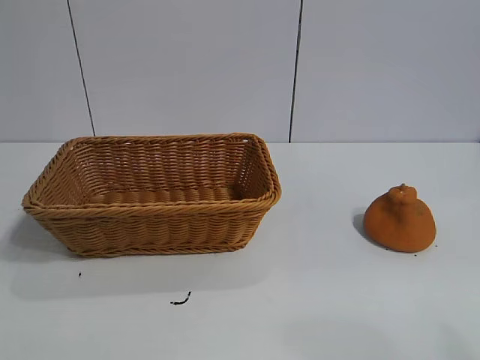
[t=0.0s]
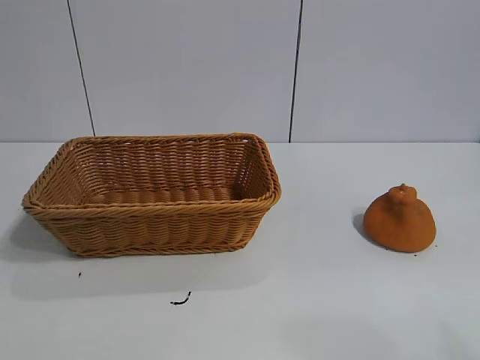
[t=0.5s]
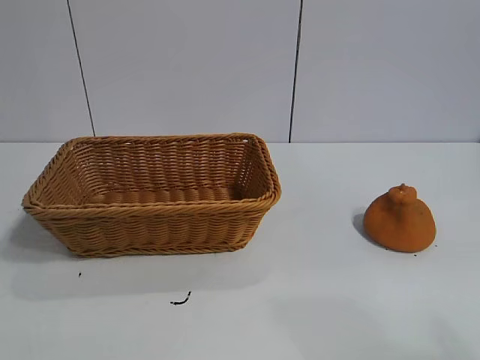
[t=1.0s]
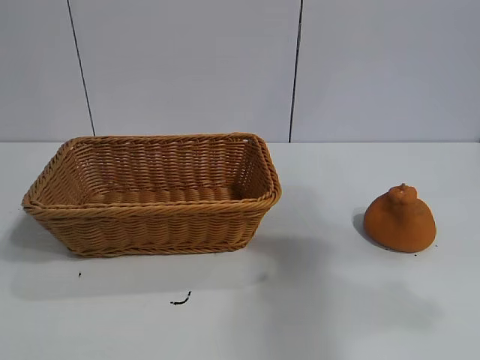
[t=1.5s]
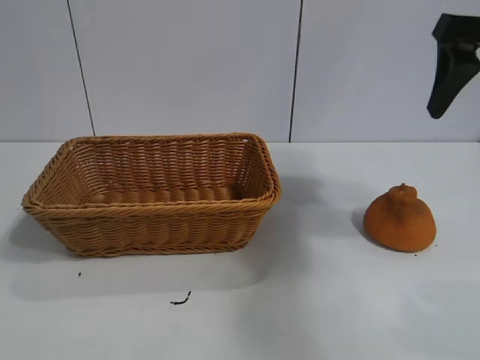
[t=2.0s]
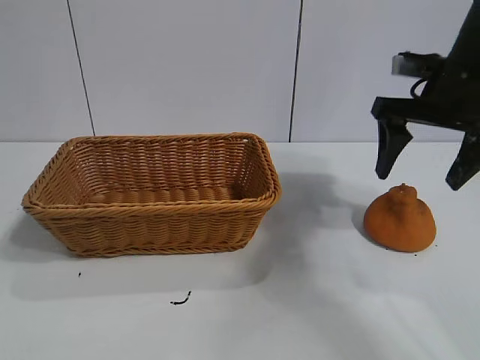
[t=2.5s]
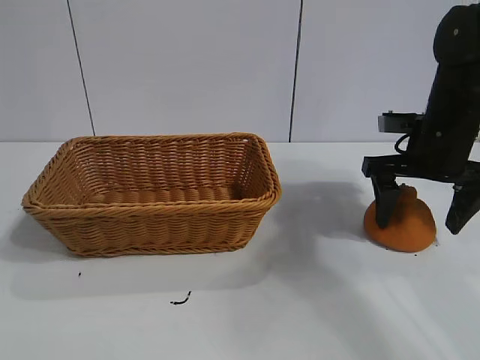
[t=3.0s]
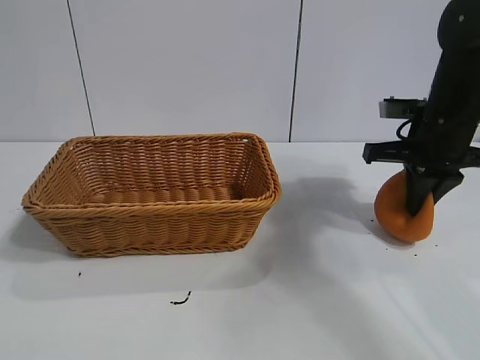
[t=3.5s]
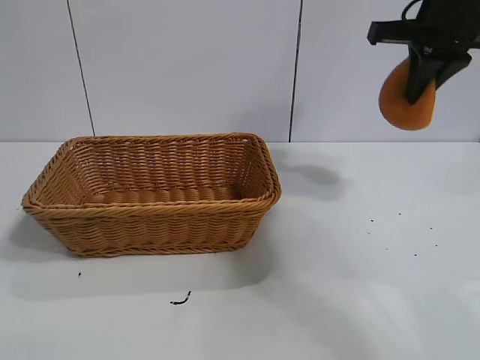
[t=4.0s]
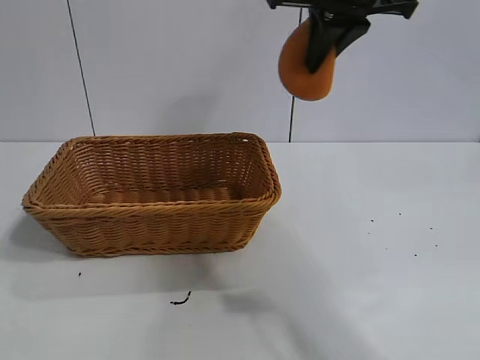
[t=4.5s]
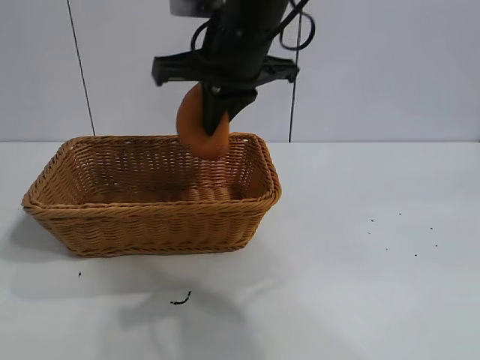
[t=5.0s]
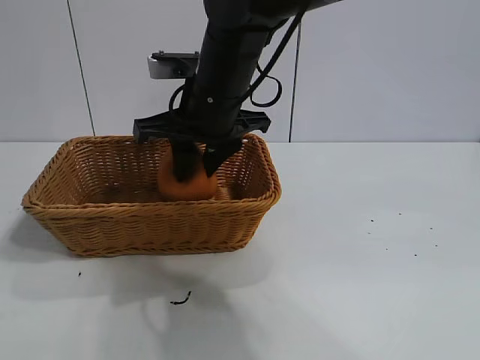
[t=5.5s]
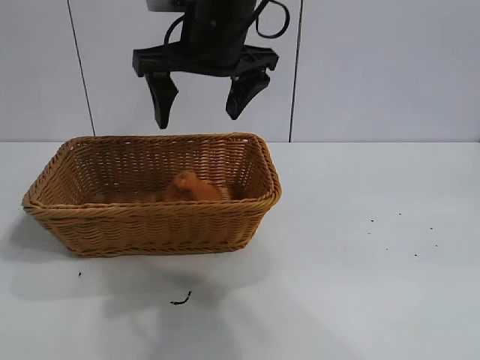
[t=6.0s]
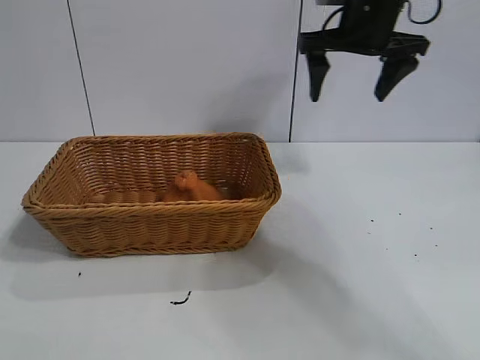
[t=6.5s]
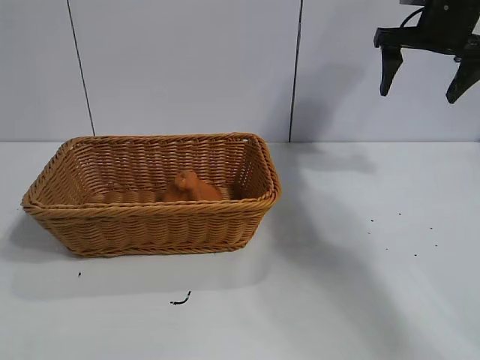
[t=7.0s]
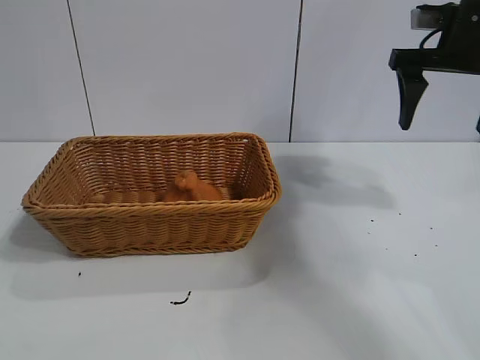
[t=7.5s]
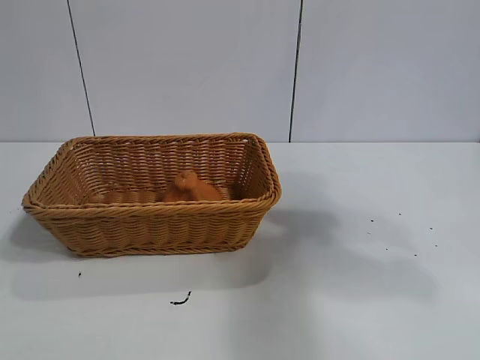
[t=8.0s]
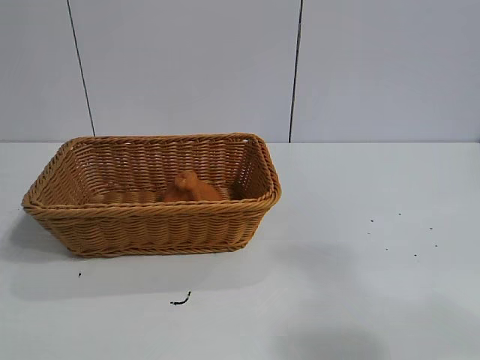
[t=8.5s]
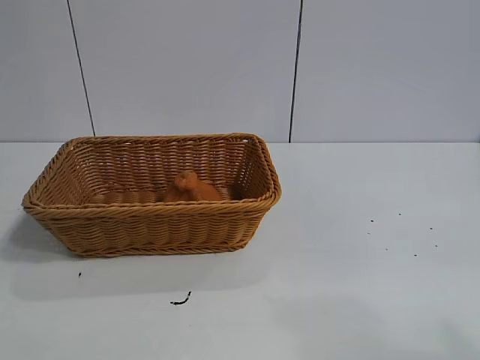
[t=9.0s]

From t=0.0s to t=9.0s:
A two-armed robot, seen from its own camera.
Task of the whole recording: pick up the orange and put it into the basket.
Step, from t=1.0s to t=3.0s: Grasp the orange with right gripper.
Step, from t=3.5s to t=5.5s: Place the orange in the basket with right gripper.

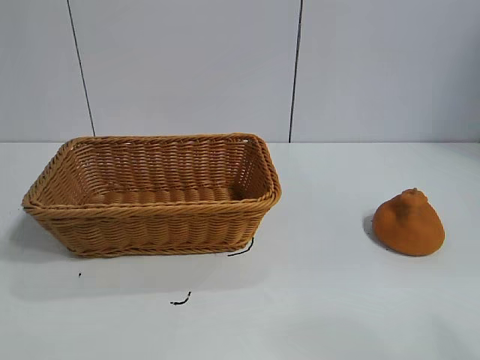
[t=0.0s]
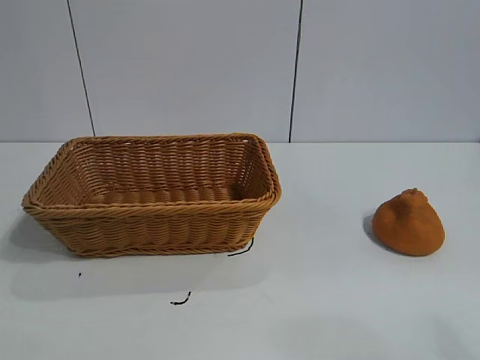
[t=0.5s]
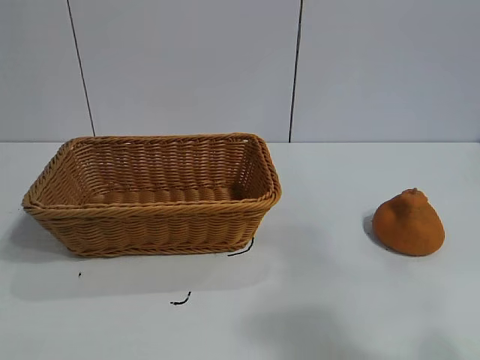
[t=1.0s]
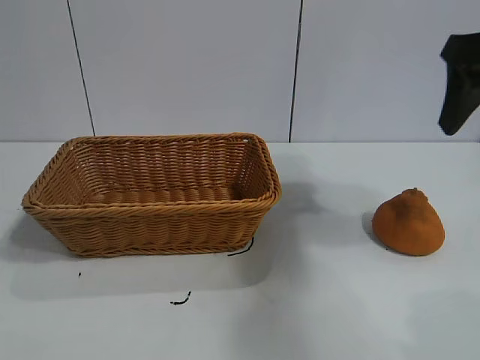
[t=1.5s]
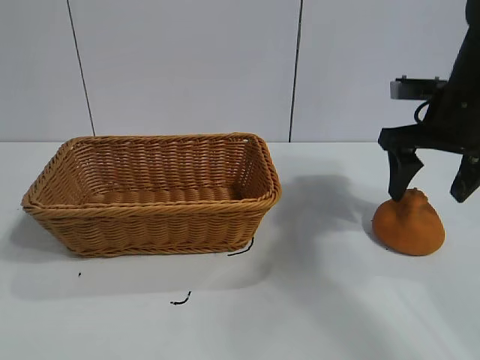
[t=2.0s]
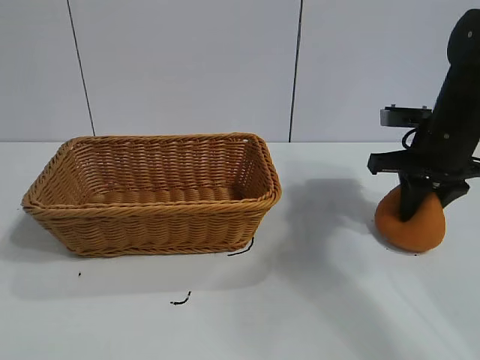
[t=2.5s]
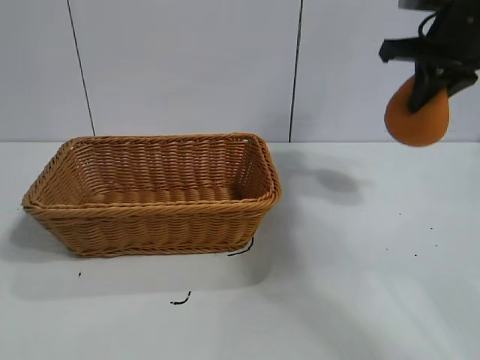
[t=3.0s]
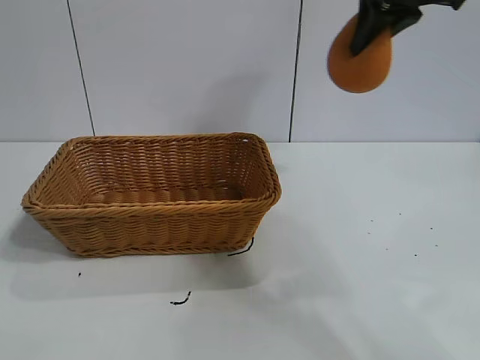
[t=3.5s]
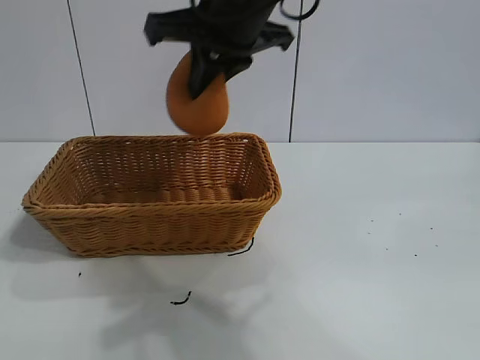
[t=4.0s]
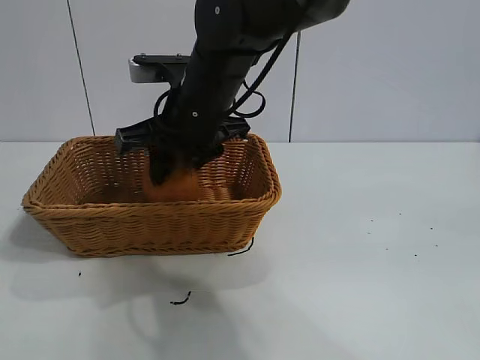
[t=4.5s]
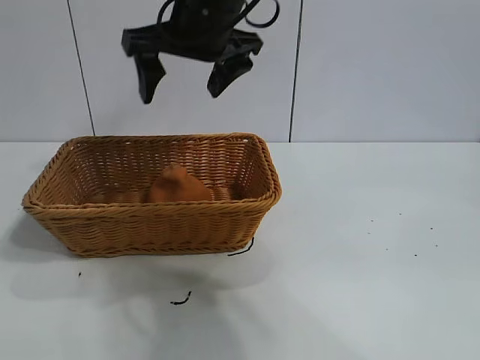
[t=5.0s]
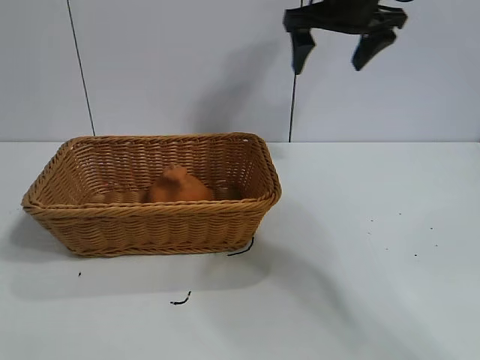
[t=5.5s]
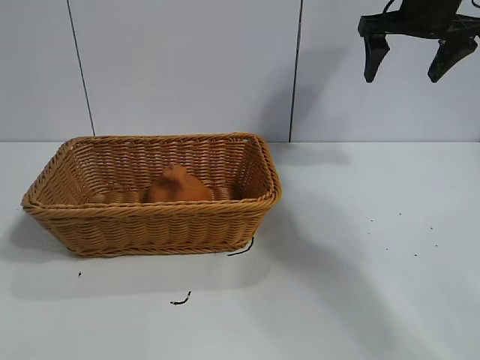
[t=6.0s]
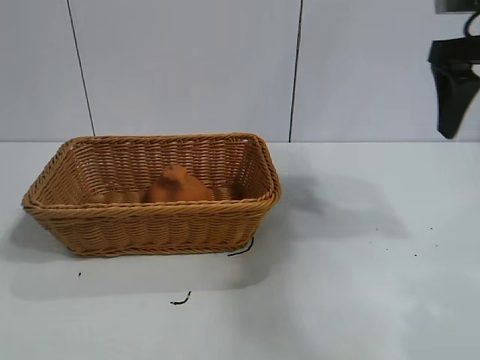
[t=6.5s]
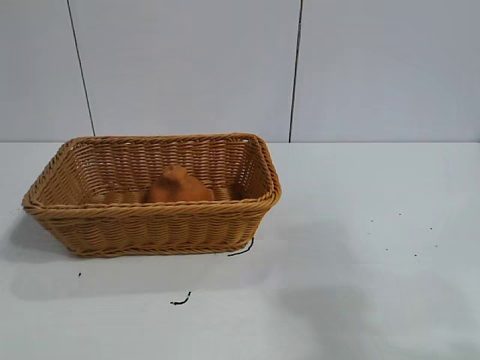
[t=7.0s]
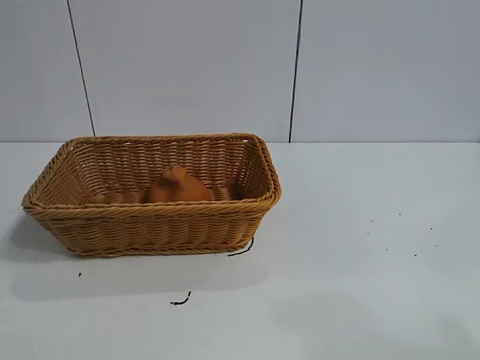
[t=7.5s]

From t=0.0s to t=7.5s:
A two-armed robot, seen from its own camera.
Task of the whole recording: pick up the orange and put it into the basket.
Step, from t=1.0s to t=2.5s: Grasp the orange with right gripper.
Step, from t=3.0s to t=4.5s: Place the orange in the basket with right gripper.

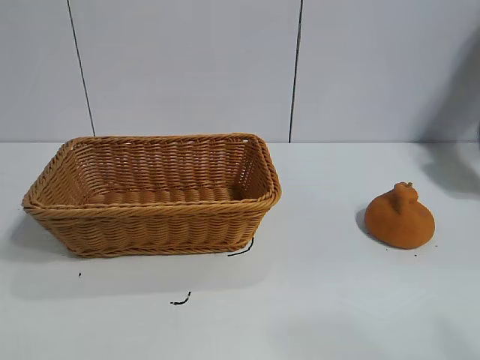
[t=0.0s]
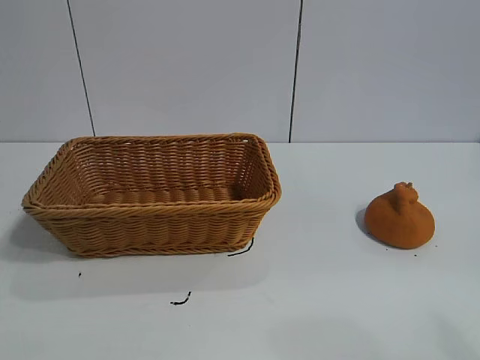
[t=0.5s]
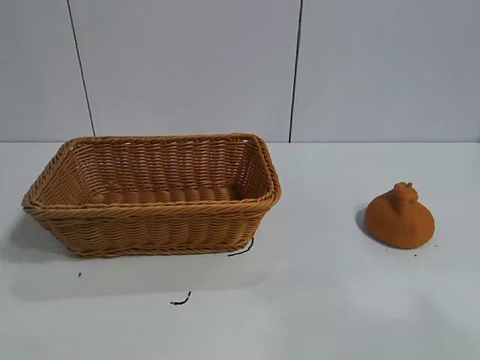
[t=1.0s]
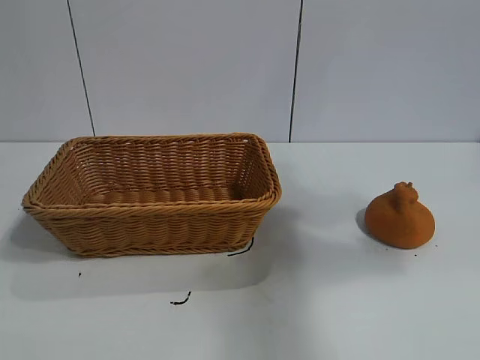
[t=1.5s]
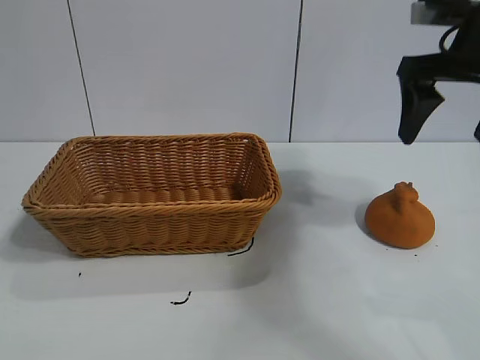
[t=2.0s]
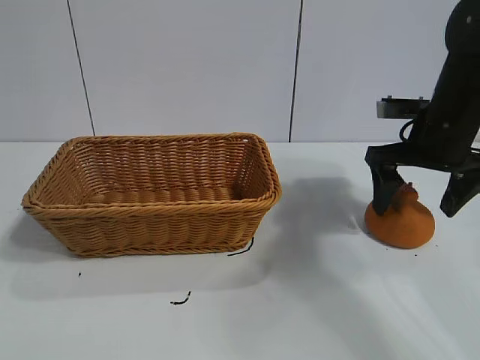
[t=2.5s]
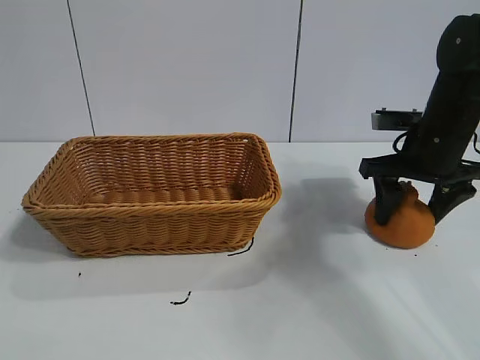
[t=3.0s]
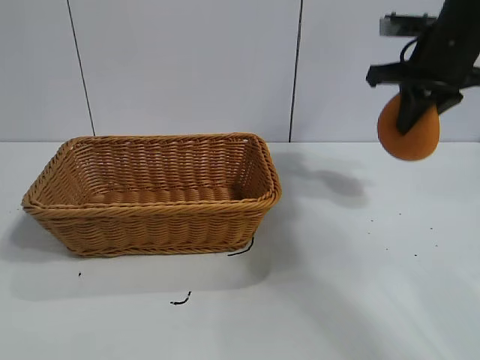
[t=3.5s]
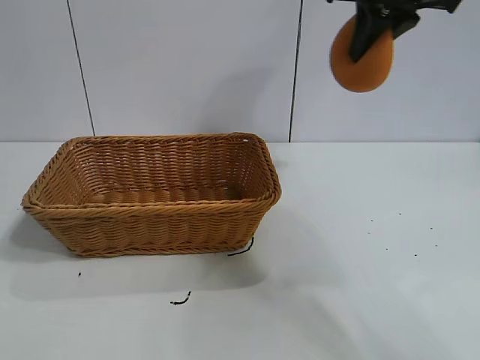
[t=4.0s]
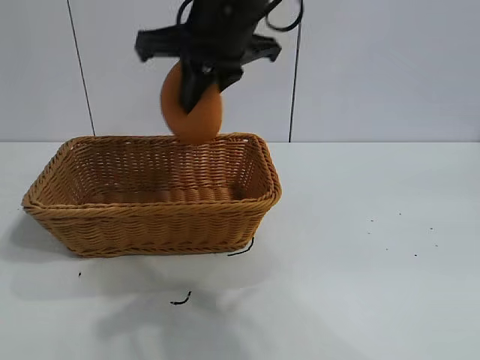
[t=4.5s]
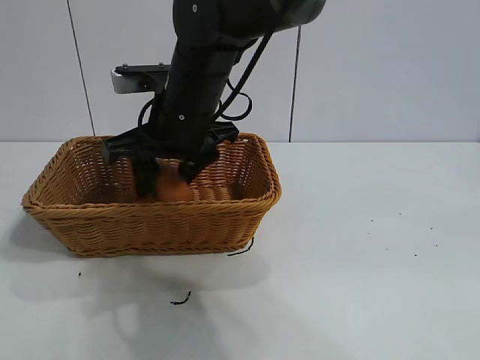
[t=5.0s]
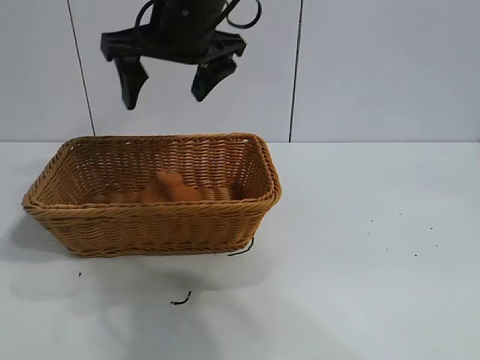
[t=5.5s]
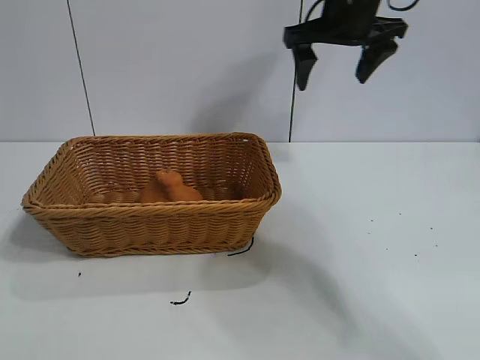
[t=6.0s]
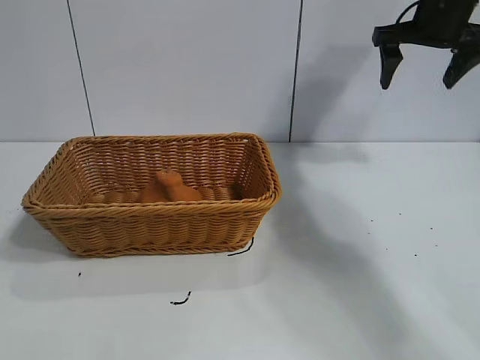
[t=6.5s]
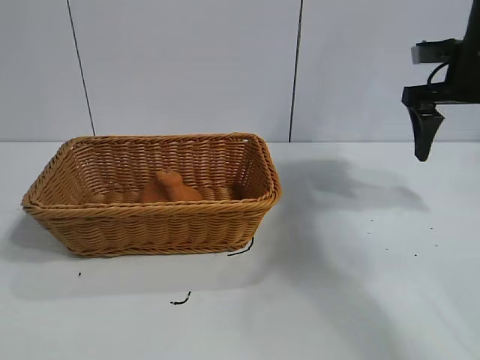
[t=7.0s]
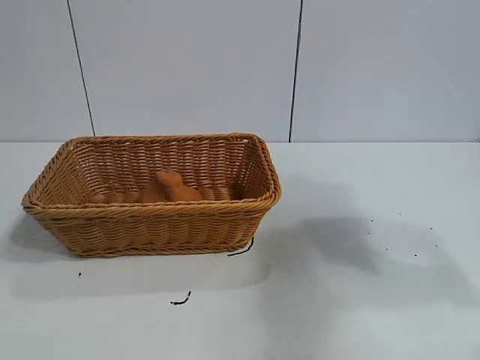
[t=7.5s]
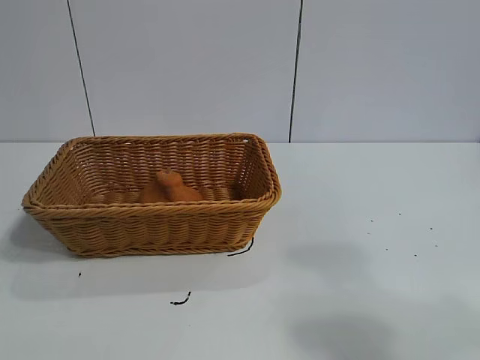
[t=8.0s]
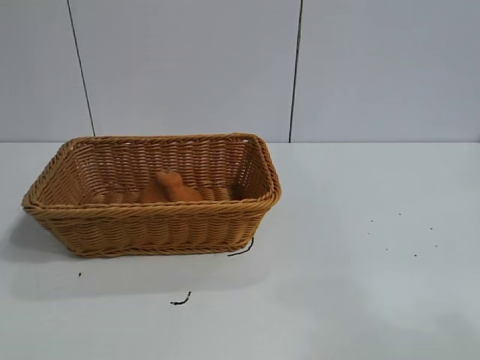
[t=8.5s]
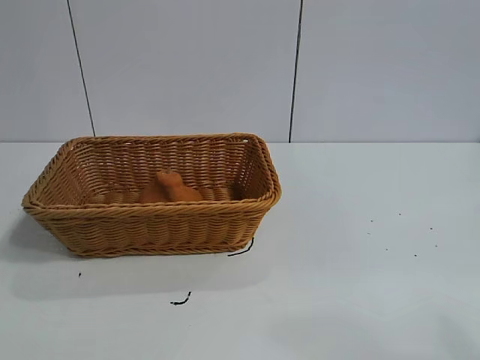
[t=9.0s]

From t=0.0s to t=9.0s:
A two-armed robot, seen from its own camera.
Task of the whole recording: pick up the orange and put it into the basket.
Step, from t=1.0s to t=3.0s: Grasp the orange with right gripper.
Step, from t=3.5s to t=5.0s: Place the orange in the basket with right gripper.
